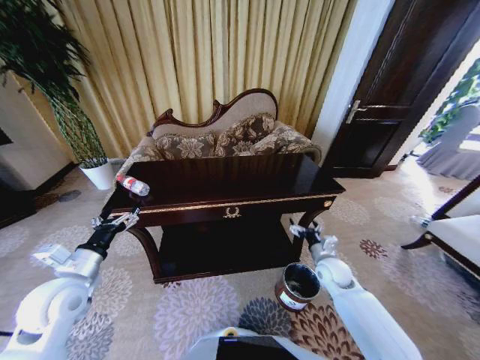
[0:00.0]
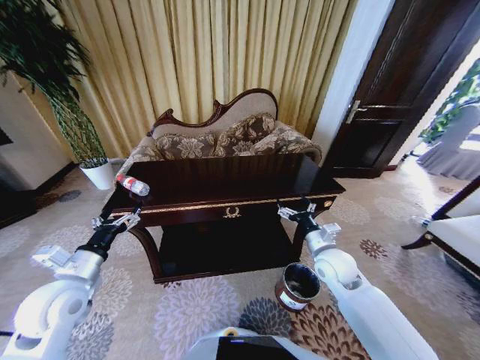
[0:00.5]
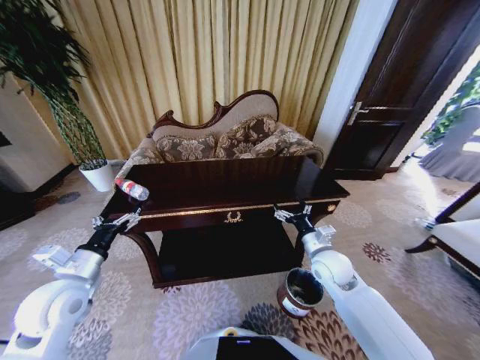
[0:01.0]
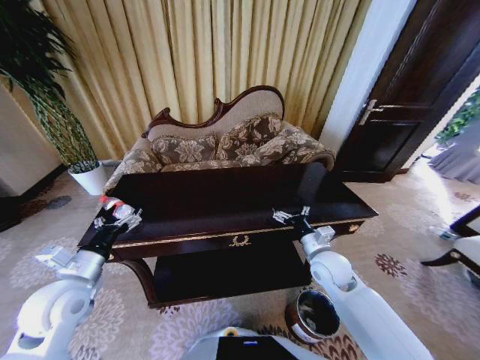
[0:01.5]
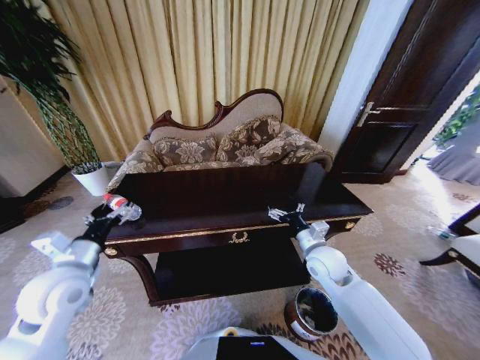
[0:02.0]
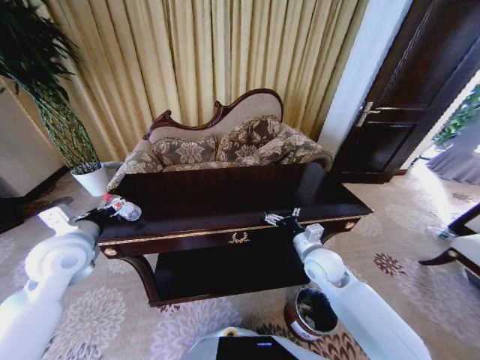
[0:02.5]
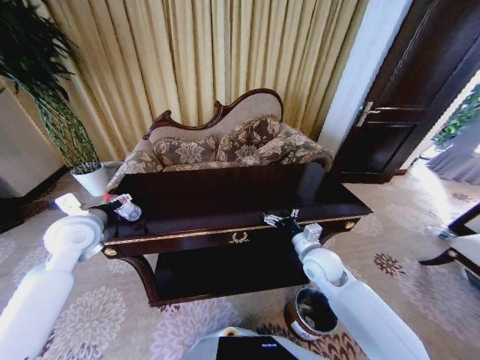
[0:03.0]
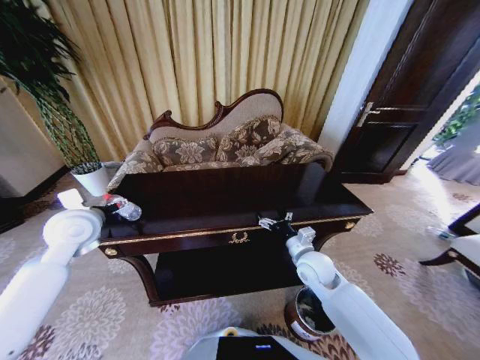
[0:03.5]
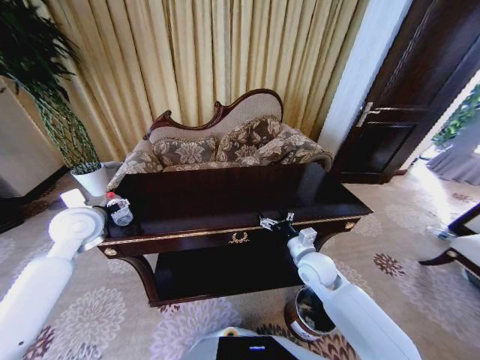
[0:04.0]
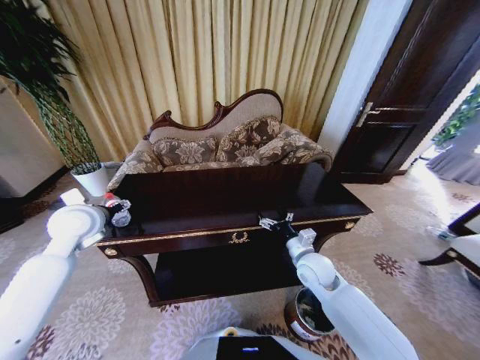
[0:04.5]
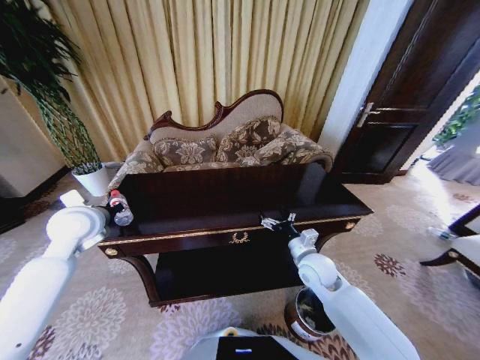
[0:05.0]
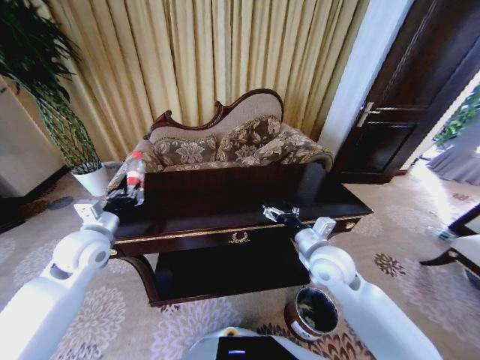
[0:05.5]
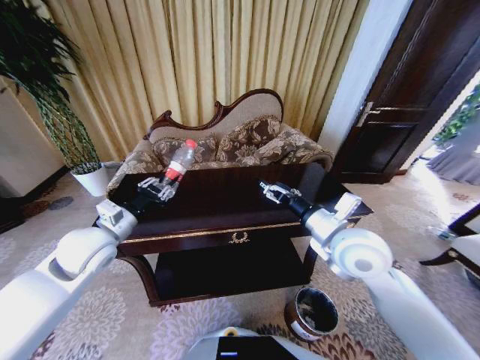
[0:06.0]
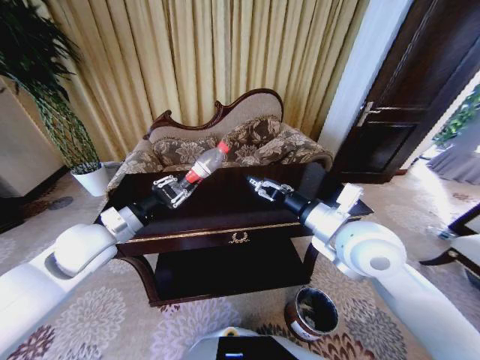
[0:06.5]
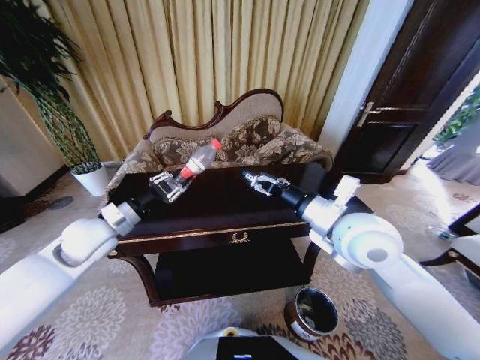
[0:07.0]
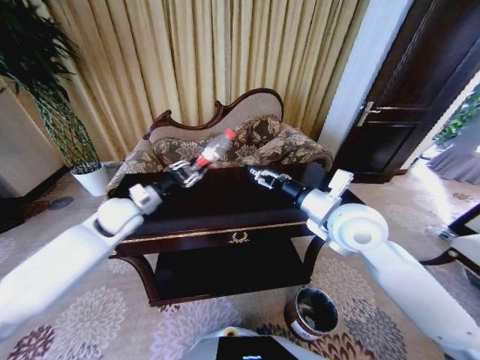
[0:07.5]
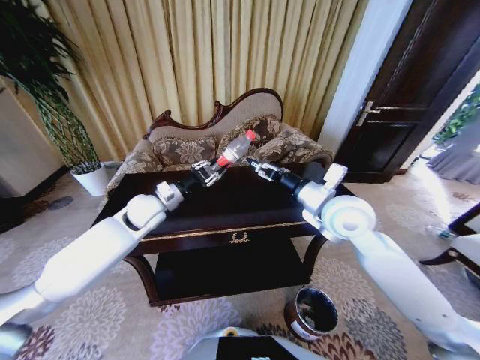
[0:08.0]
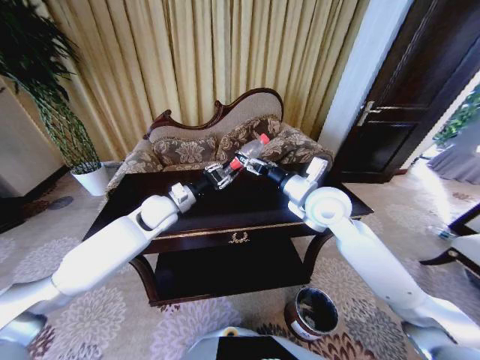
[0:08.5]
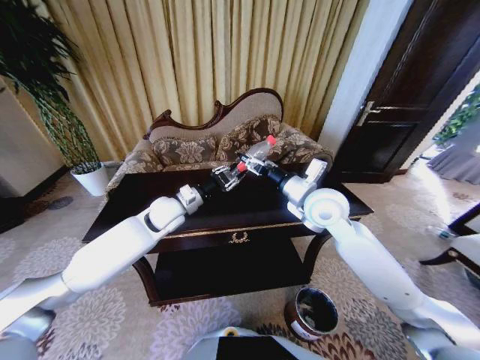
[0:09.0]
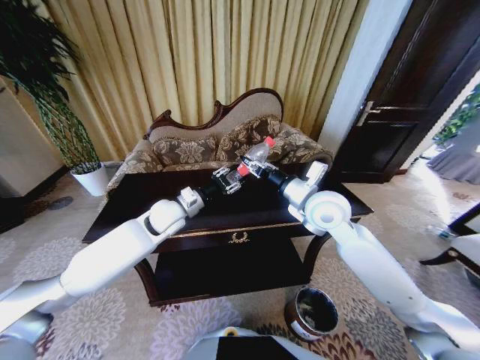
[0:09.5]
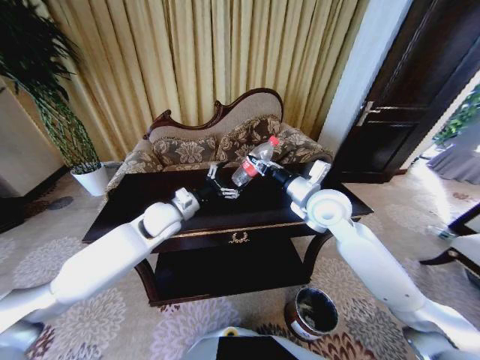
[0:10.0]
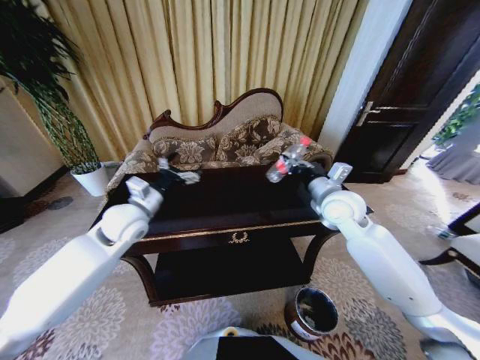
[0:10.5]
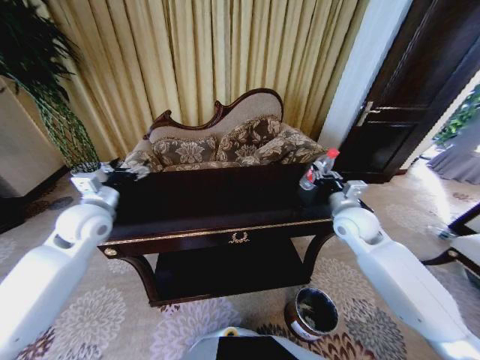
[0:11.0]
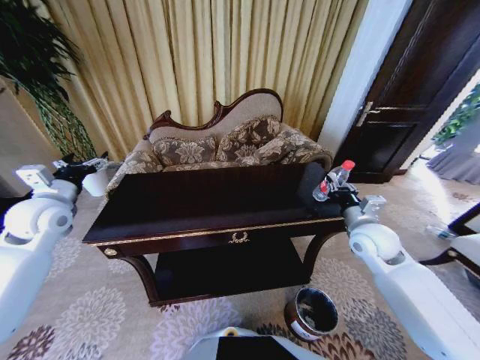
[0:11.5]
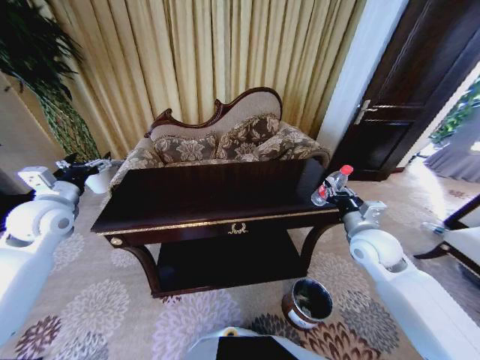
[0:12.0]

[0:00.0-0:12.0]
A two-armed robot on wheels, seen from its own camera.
Task of the whole recording: Move to the front of the table and place the trash on the table into the trash bin.
0:00.0 to 0:02.0: The right gripper goes about 10 cm upward and to the left.
0:02.0 to 0:04.0: The left gripper travels forward by about 15 cm.
0:04.0 to 0:06.0: The left gripper travels backward and to the right by some 10 cm, and closes; the right gripper heads upward, covering some 20 cm.
0:06.0 to 0:08.0: The left gripper shifts about 15 cm forward and to the right; the right gripper heads forward, covering roughly 5 cm.
0:08.0 to 0:10.0: The right gripper closes its fingers. The left gripper opens its fingers.
0:10.0 to 0:12.0: The right gripper heads to the right, downward and backward, covering approximately 15 cm. The left gripper is displaced to the left by about 25 cm.

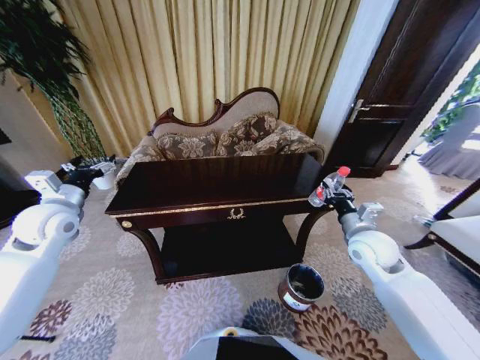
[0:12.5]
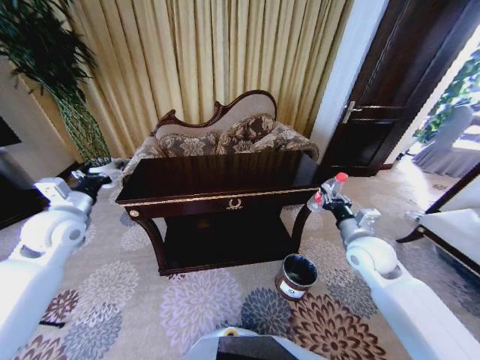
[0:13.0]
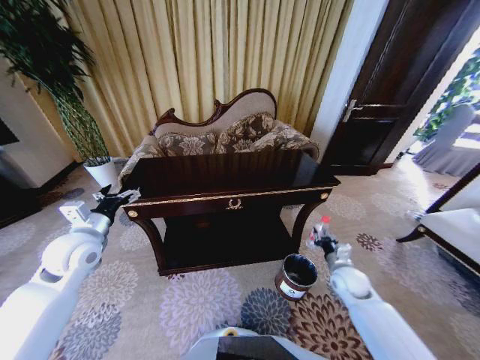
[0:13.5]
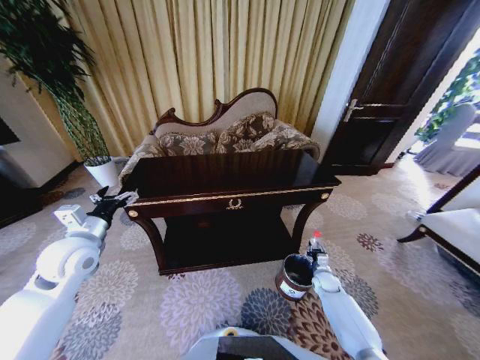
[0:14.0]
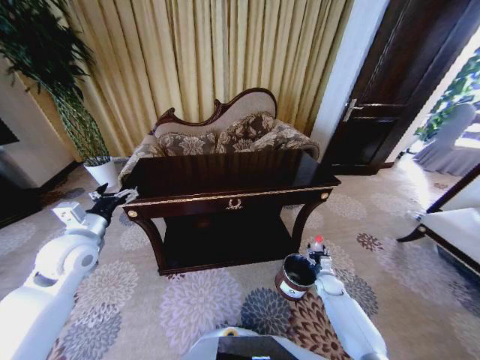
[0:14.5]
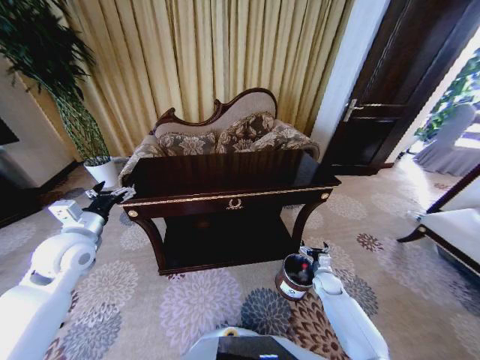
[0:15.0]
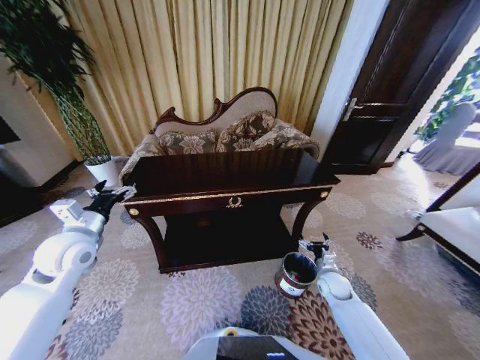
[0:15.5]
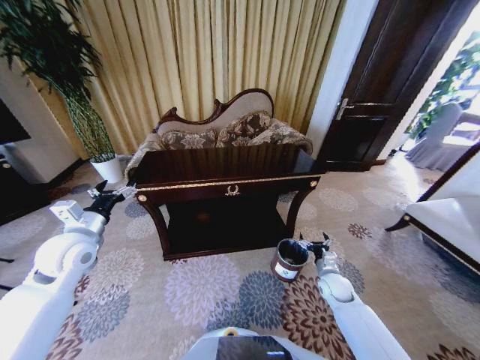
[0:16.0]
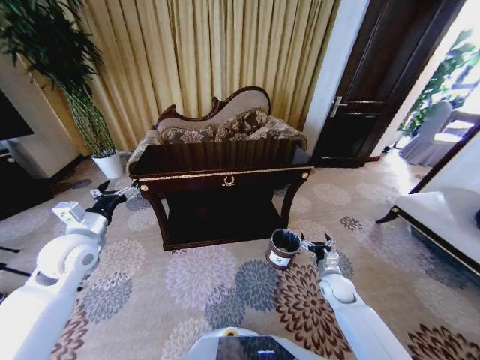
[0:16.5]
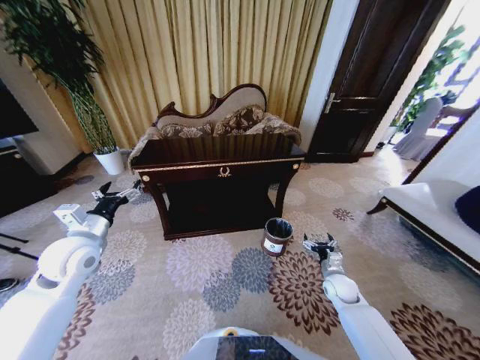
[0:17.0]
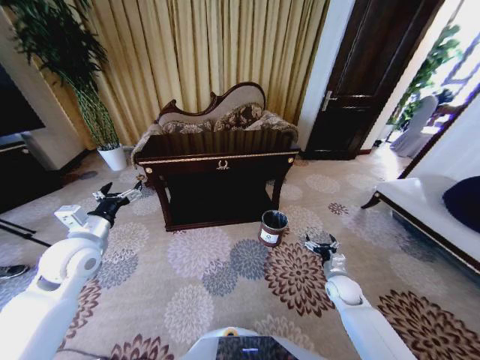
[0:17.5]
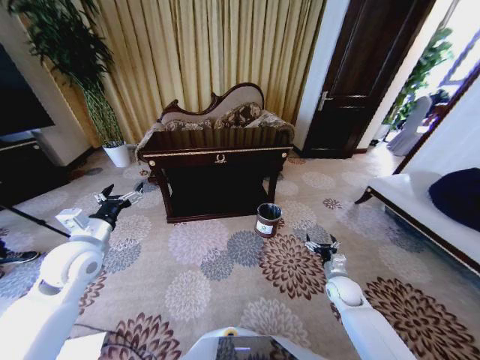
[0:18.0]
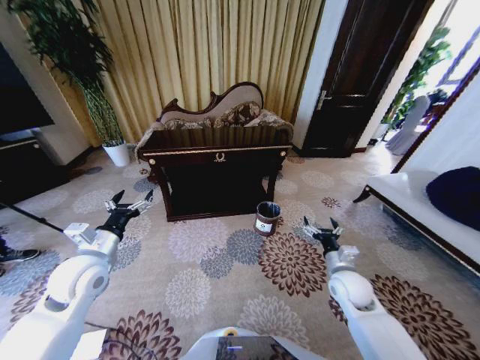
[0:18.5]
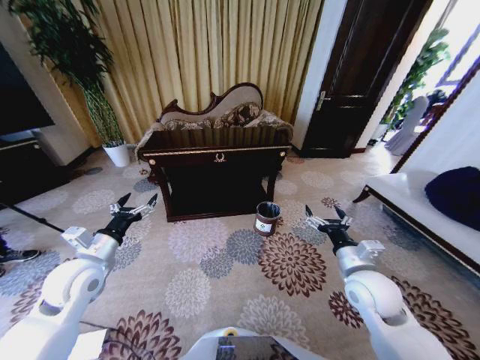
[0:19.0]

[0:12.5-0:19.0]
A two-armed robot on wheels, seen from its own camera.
Task of the whole recording: Move to the front of the table and place the trash on the table into the trash bin.
0:12.5 to 0:14.5: The right gripper heads downward, covering roughly 35 cm; the left gripper travels backward and to the right by some 10 cm.
0:14.5 to 0:17.0: The right gripper is displaced upward by about 10 cm, and opens its fingers.
0:17.0 to 0:19.0: The left gripper ends up approximately 5 cm from where it was; the right gripper travels upward by some 20 cm.
